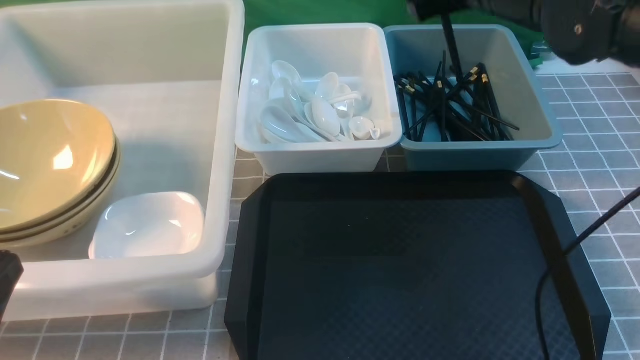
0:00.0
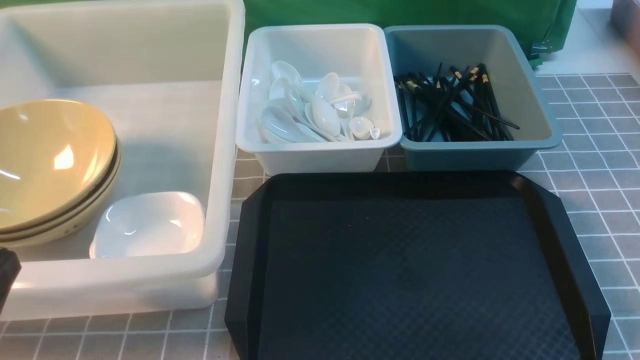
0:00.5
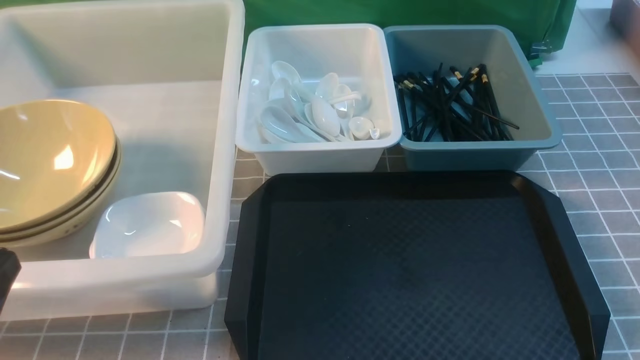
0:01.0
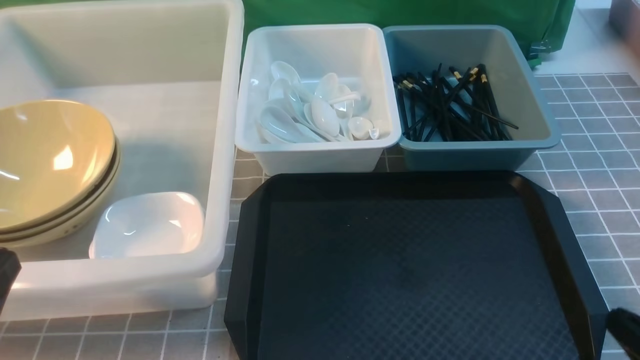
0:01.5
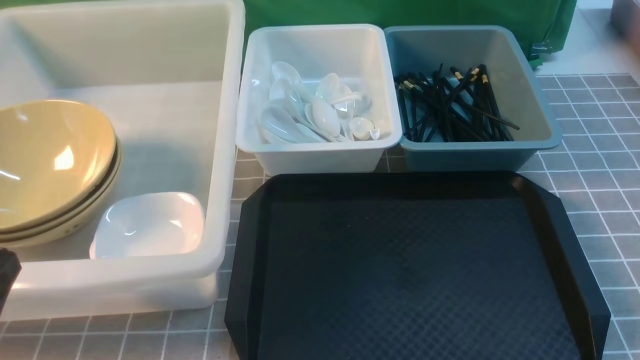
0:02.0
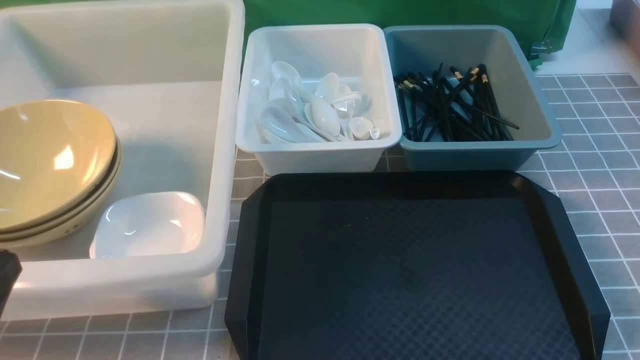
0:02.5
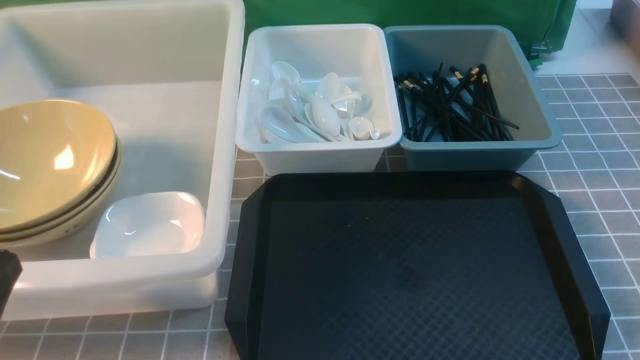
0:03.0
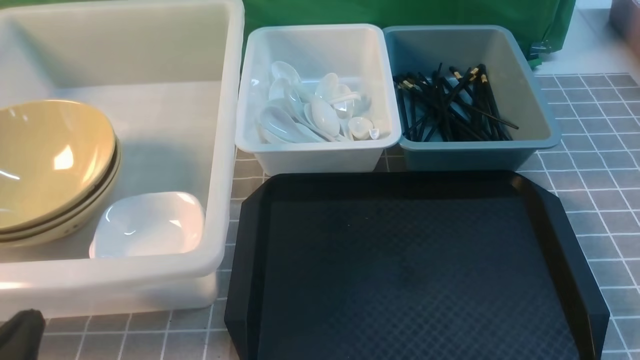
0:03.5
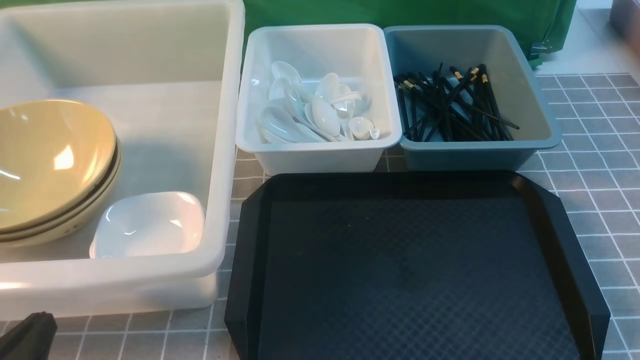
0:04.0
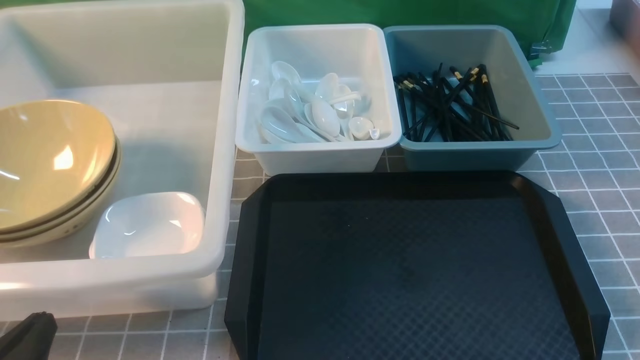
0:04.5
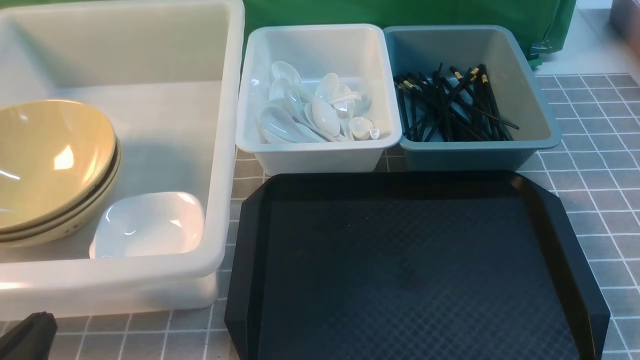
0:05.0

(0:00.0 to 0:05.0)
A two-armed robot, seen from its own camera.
Task of the whole recording: on grey table put chopsticks spoon bowls plates into blue grey white boxes.
0:00.0 - 0:02.5: The right gripper is displaced backward, downward and to the right by approximately 40 cm, and closes.
0:02.5 - 0:05.0: The left gripper travels downward by about 10 cm.

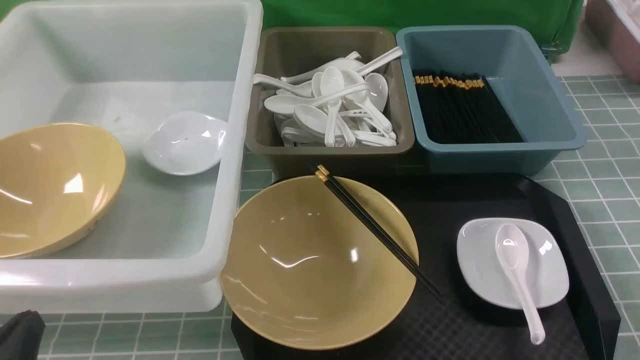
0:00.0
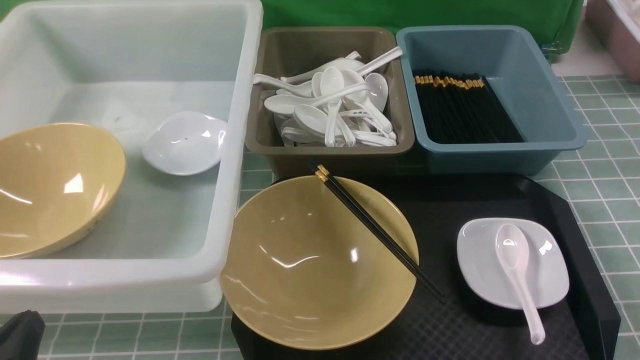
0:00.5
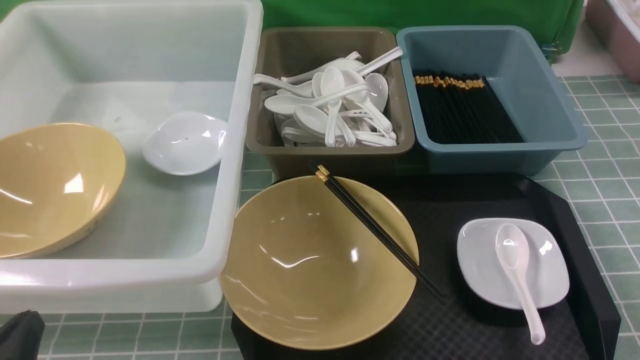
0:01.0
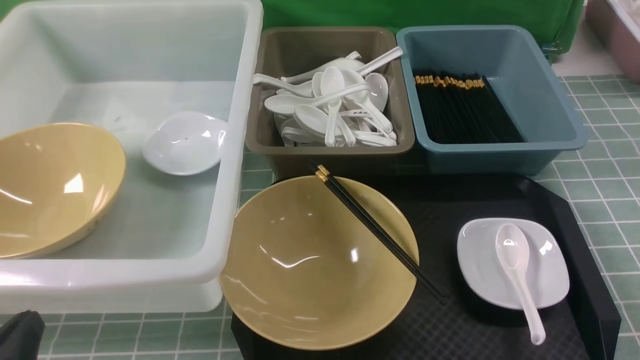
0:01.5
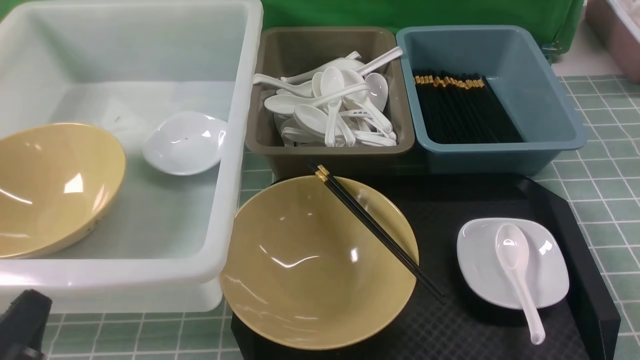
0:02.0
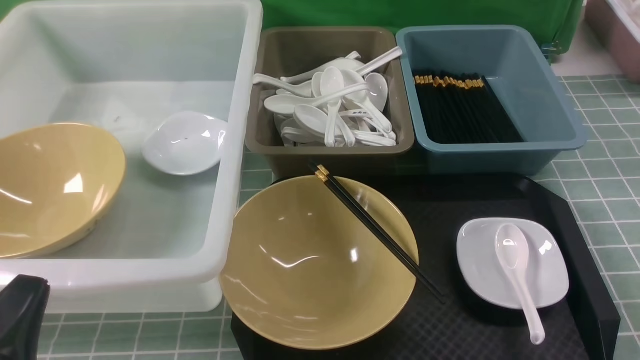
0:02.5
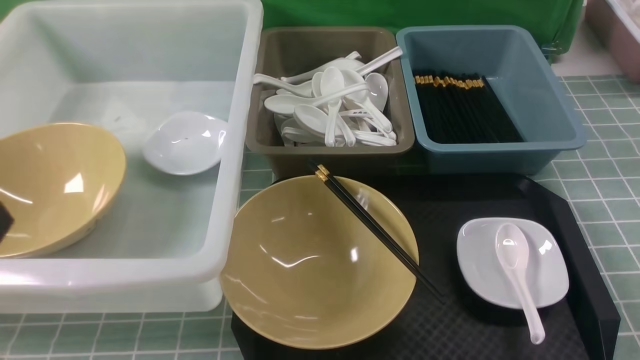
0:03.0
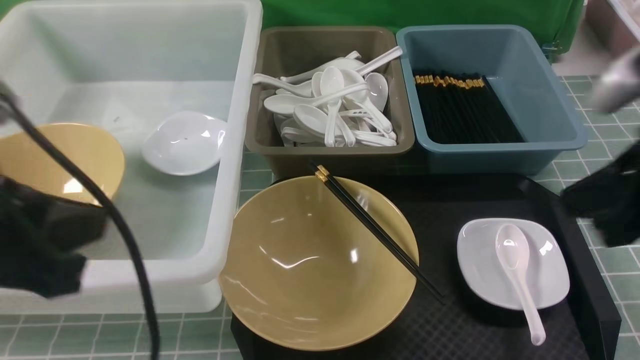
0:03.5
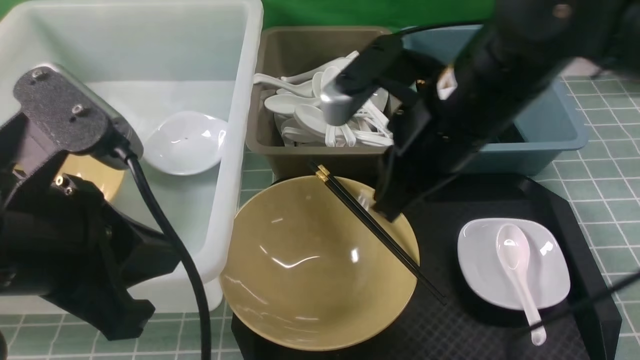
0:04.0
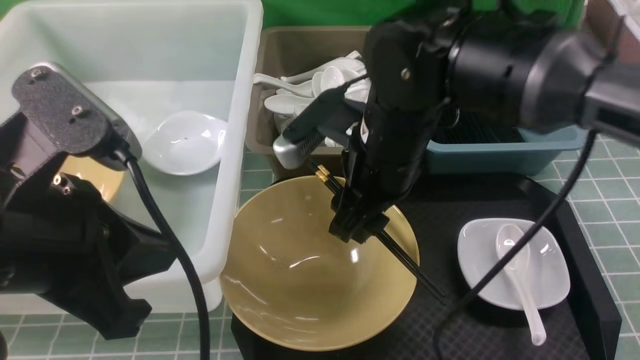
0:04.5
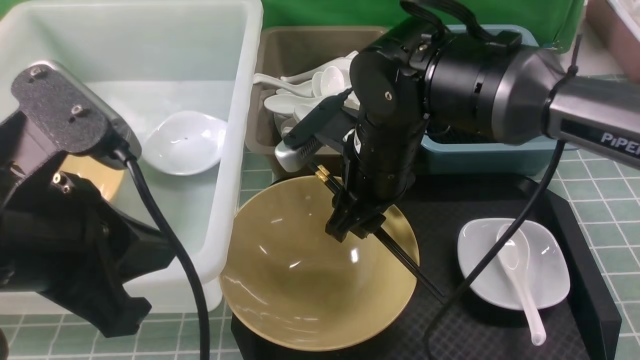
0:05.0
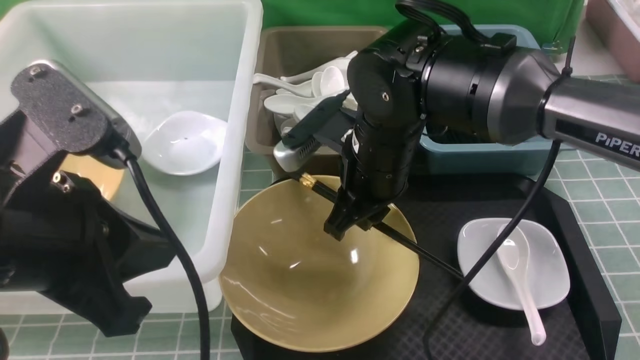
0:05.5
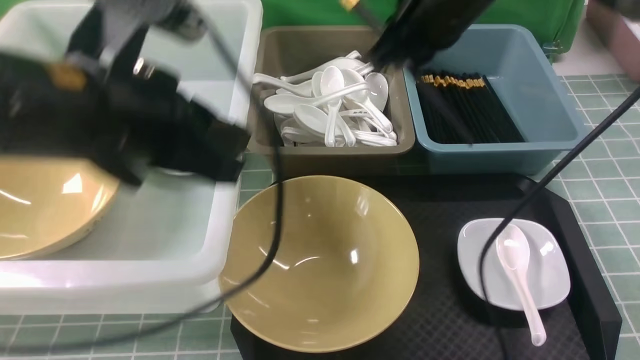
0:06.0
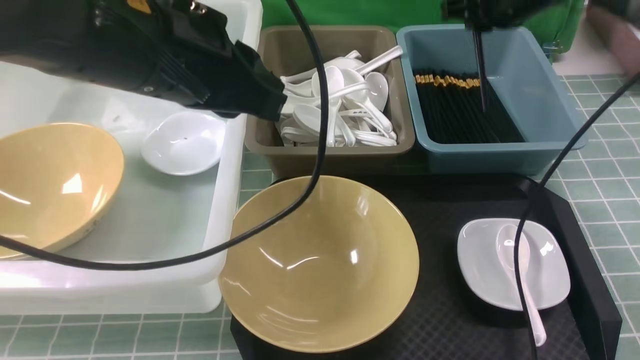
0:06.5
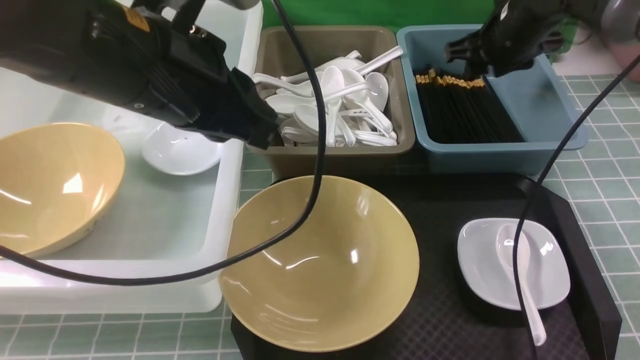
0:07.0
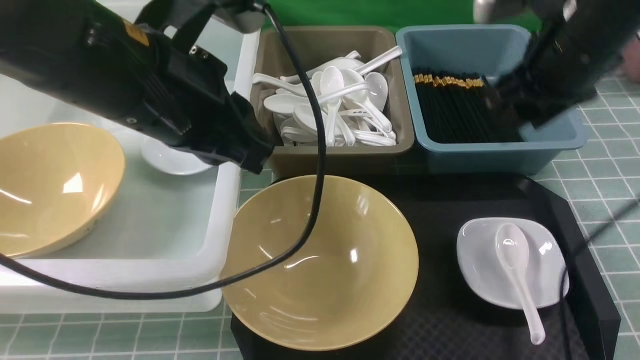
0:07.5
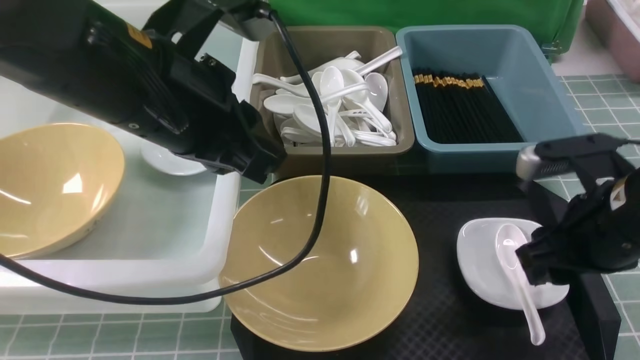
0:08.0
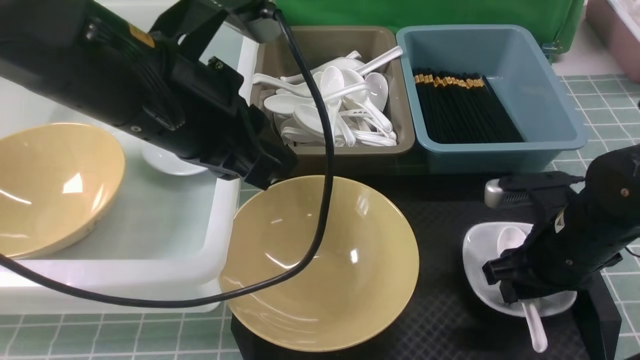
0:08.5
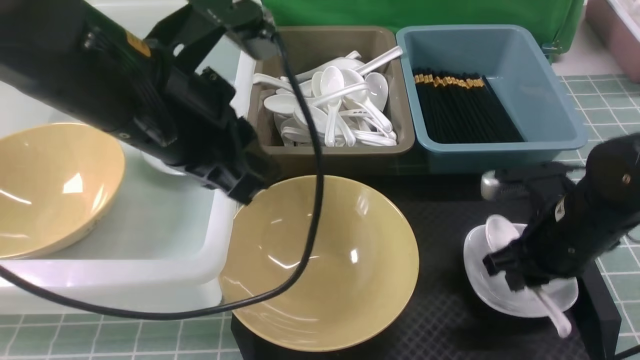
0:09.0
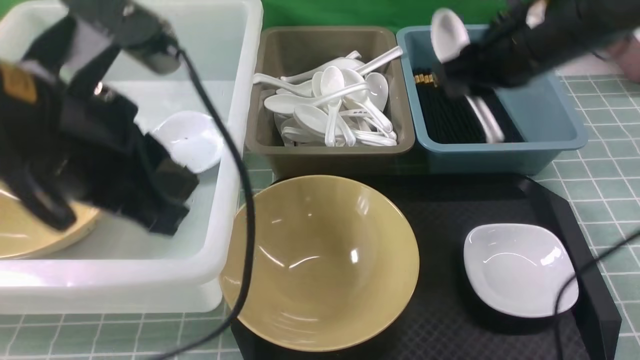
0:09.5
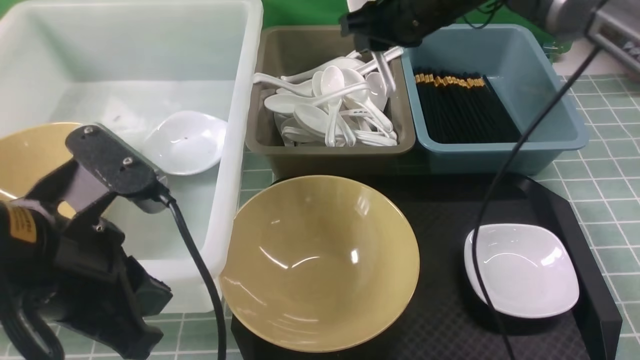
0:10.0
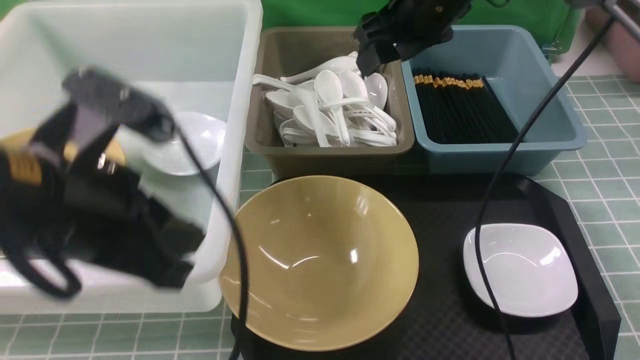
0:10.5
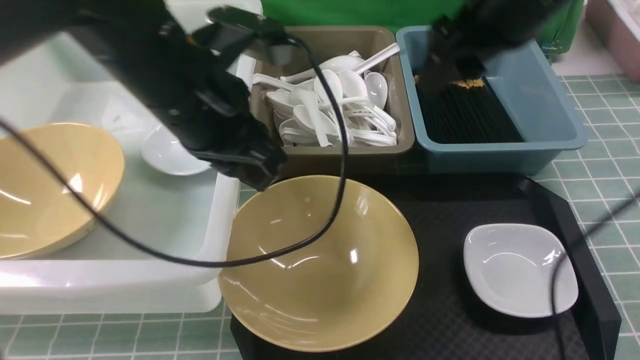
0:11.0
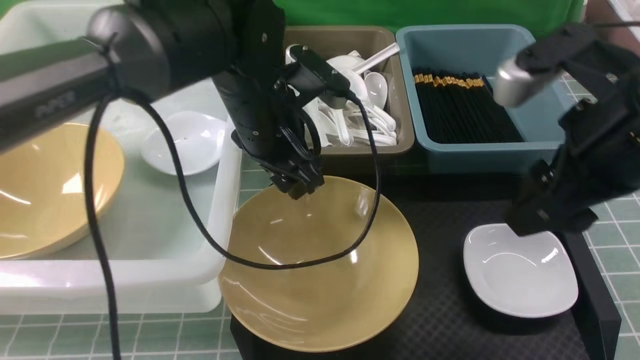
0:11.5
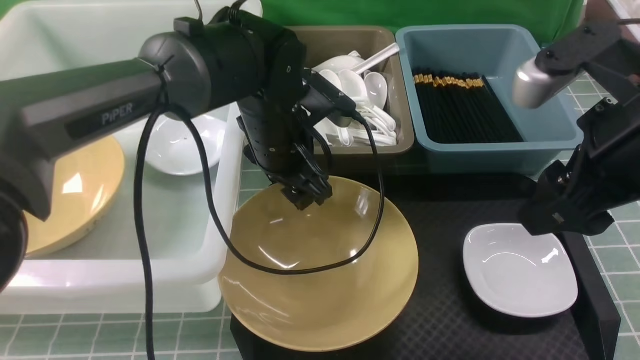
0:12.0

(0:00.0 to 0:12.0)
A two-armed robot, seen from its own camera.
Task of the whole recording: on blue table put chopsticks spoon bowls plates into blue grey white boxes.
Step, 0:00.0 - 0:05.5: use the right arm to grab the chopsticks.
Step, 0:06.0 - 0:07.0: use the right arm to put the chopsticks into the small storage box on the right.
Step, 0:07.5 - 0:08.5: use the right arm to grab the soup spoon in the middle.
Step, 0:09.0 - 0:10.0: use the right arm to put the soup spoon into the small storage box in the middle.
0:02.0 - 0:04.0: The left gripper shifts roughly 20 cm upward, forward and to the right. Meanwhile the right gripper is displaced forward, to the left and upward by about 35 cm.
0:04.0 - 0:06.0: The right gripper travels forward by roughly 10 cm, and opens, then closes again. The left gripper moves forward, roughly 10 cm.
0:06.0 - 0:08.0: The right gripper goes roughly 20 cm backward, downward and to the right, and opens up.
0:08.0 - 0:10.0: The left gripper goes some 10 cm backward, to the left and downward. Meanwhile the right gripper heads forward and to the left, covering some 25 cm.
0:10.0 - 0:12.0: The left gripper shifts approximately 25 cm forward, to the right and downward, and opens up. Meanwhile the right gripper heads backward and to the right, covering approximately 25 cm, and opens its fingers.

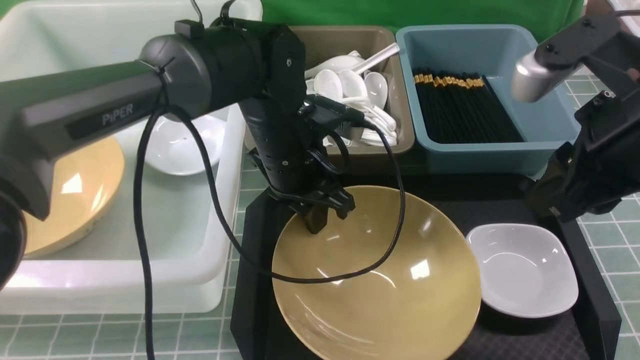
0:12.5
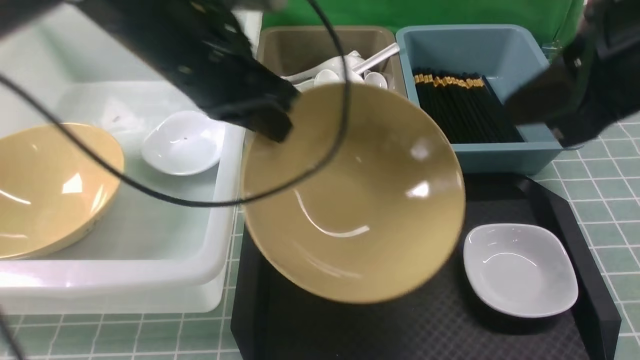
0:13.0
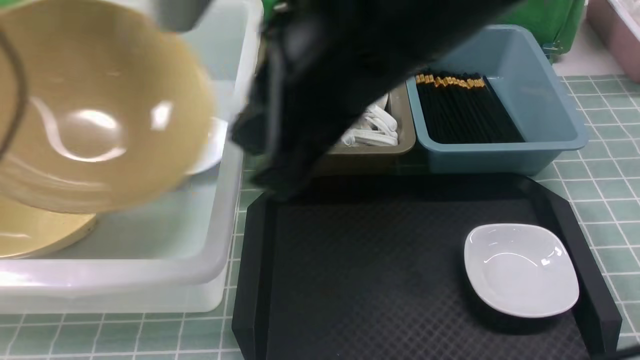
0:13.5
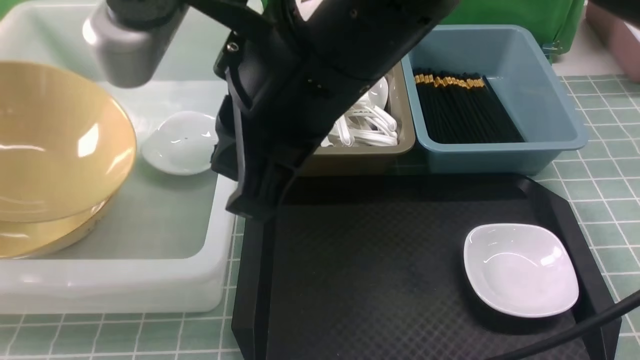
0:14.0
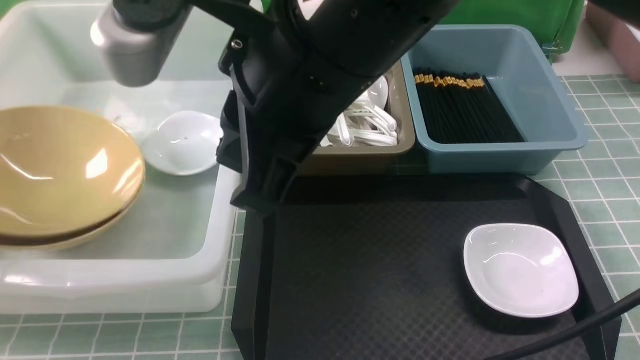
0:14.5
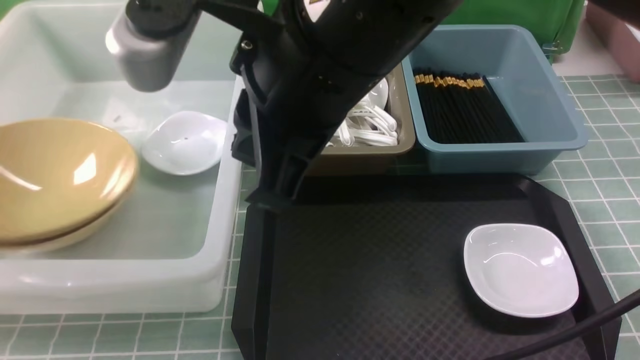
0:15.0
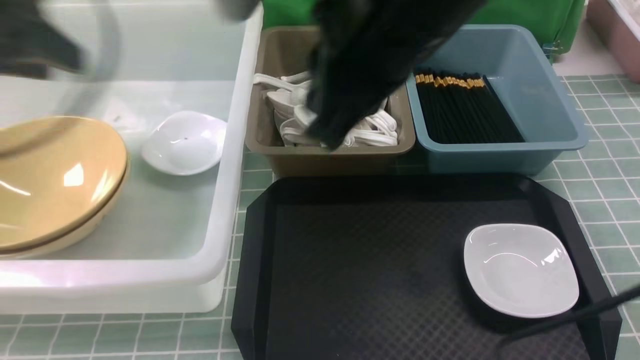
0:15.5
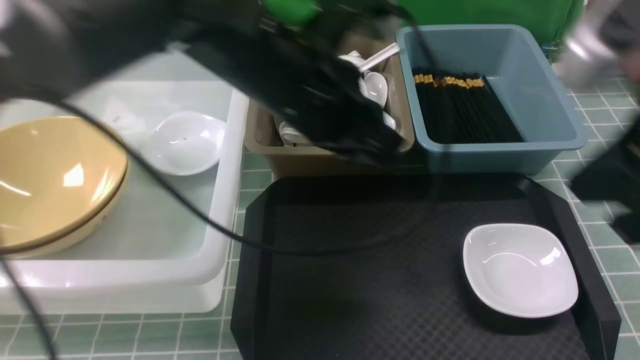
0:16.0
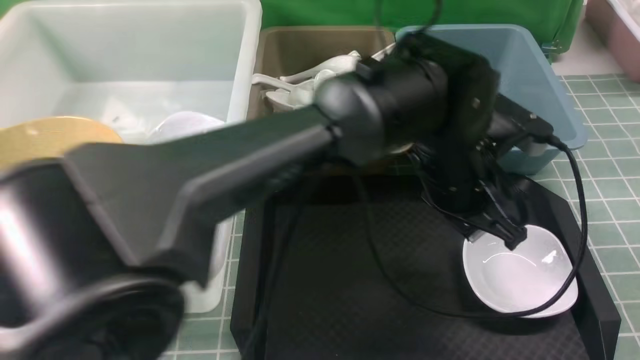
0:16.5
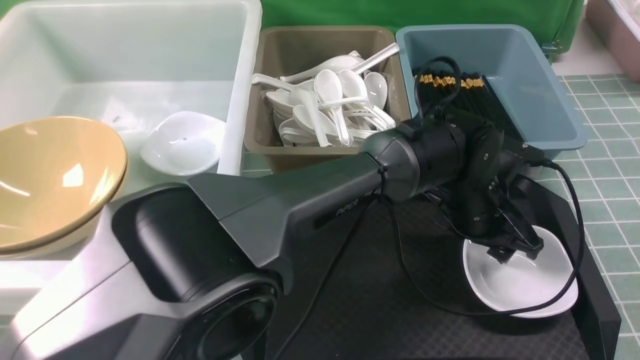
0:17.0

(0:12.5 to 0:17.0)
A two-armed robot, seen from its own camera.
Task of the whole recording: on blue table put chopsticks spoon bowls plates into blue grey white boxes.
Step, 0:13.0 - 0:15.0: use the left arm to put the noodle bowl into the large storage box on the left.
0:12.5 - 0:14.5: The right gripper goes some 20 cm to the left; the left gripper shifts approximately 40 cm to the left.
0:14.5 - 0:17.0: The right gripper is displaced to the right by some 25 cm, while the left gripper moves to the right, about 60 cm, and opens its fingers.
